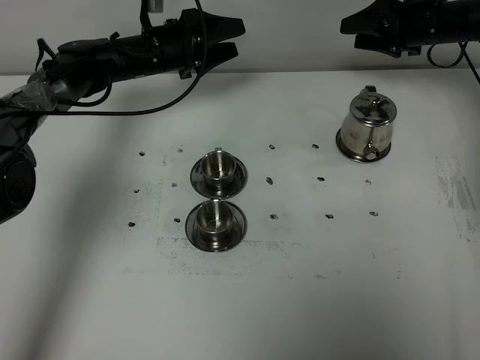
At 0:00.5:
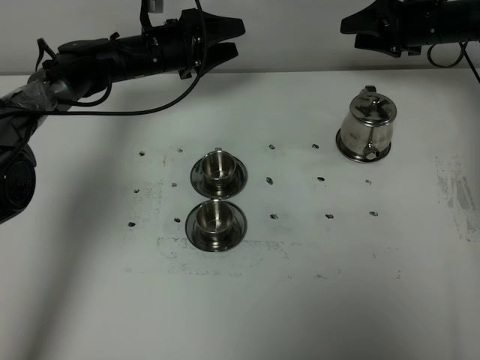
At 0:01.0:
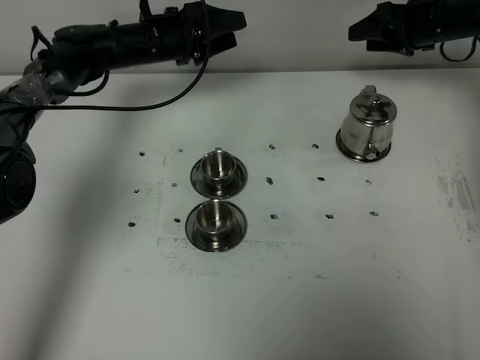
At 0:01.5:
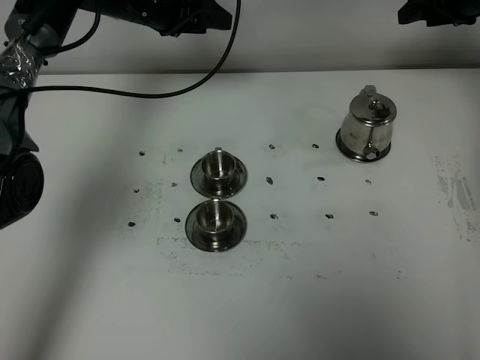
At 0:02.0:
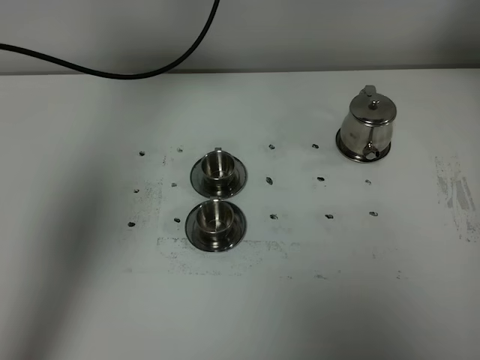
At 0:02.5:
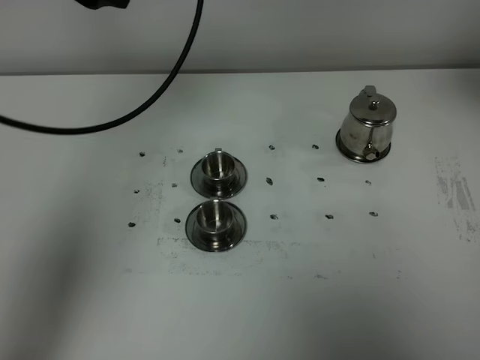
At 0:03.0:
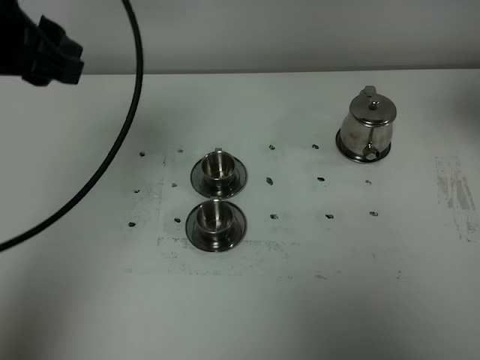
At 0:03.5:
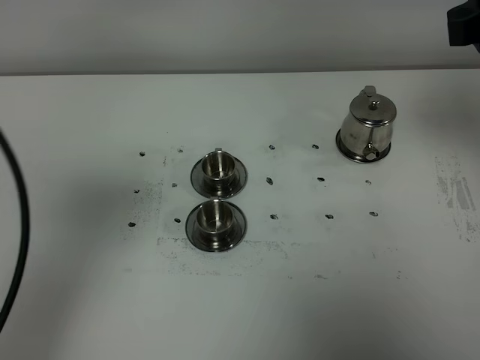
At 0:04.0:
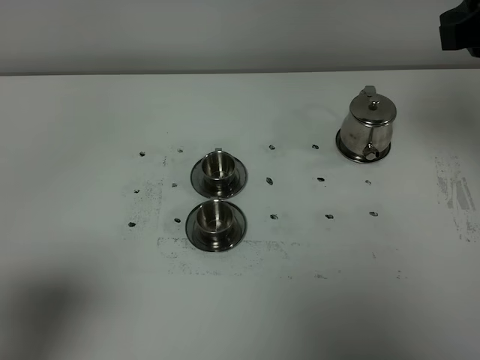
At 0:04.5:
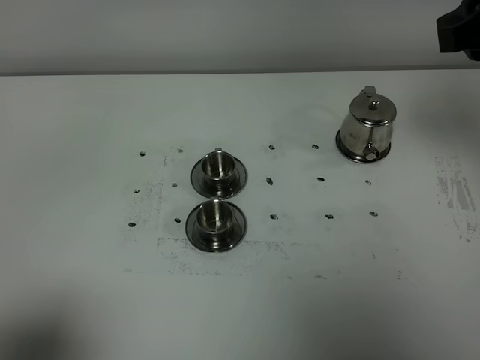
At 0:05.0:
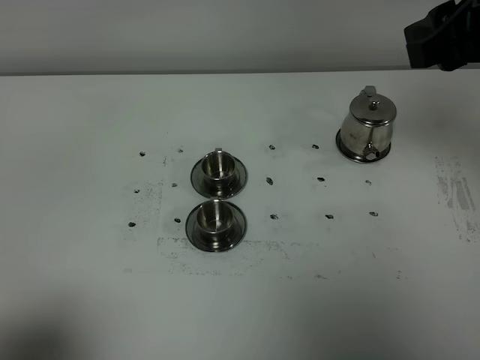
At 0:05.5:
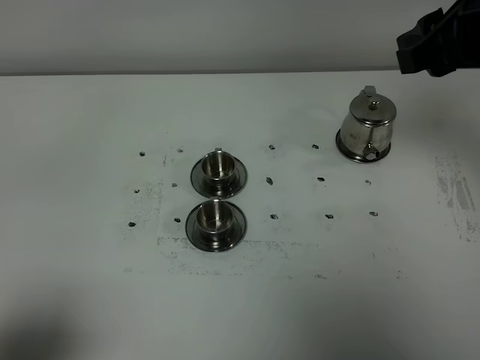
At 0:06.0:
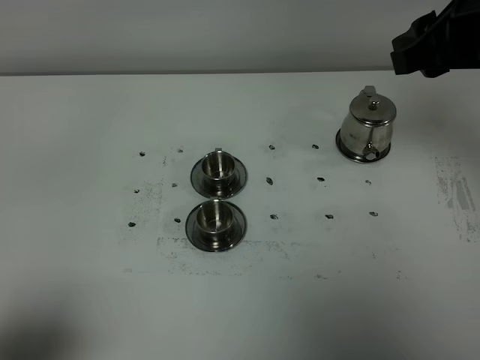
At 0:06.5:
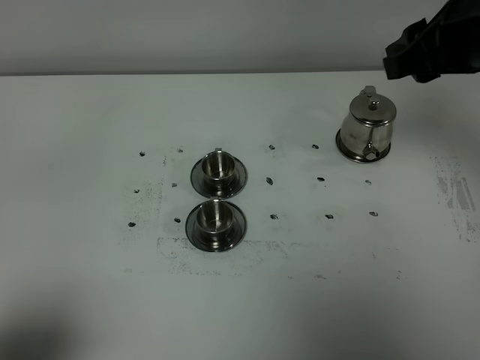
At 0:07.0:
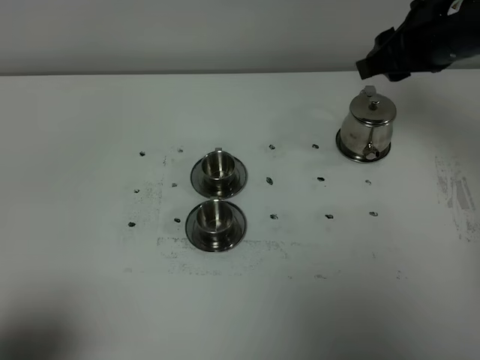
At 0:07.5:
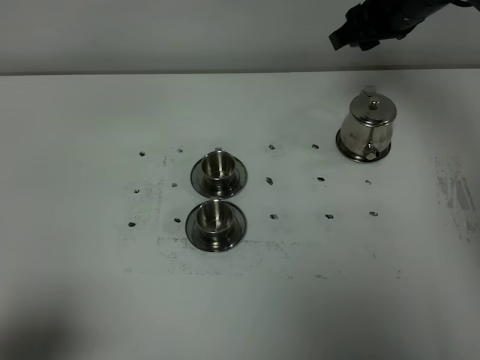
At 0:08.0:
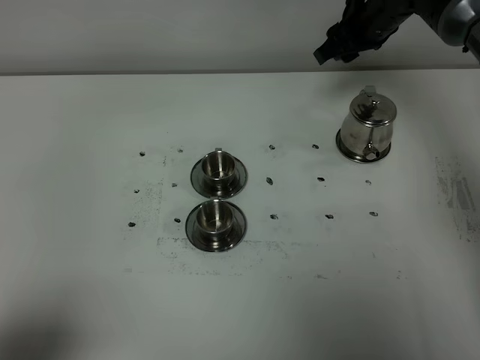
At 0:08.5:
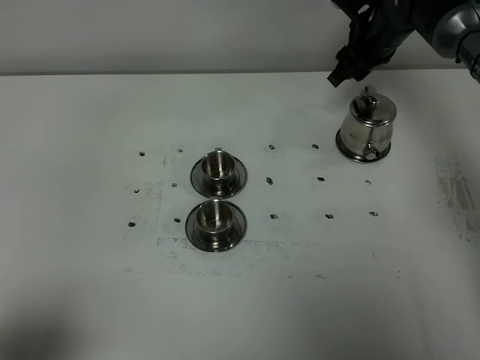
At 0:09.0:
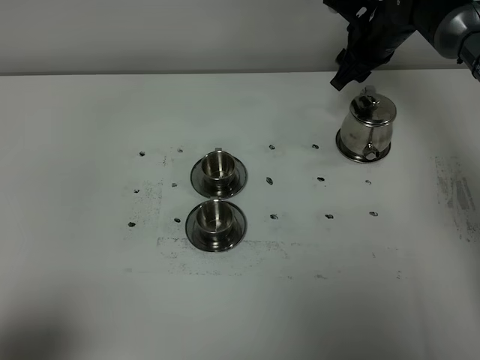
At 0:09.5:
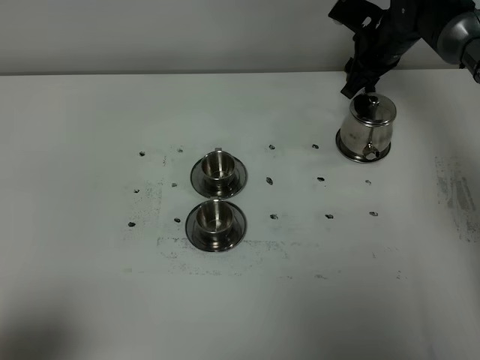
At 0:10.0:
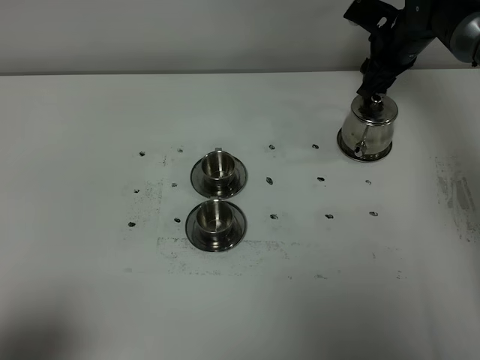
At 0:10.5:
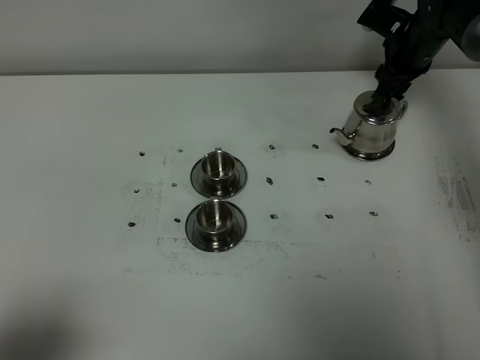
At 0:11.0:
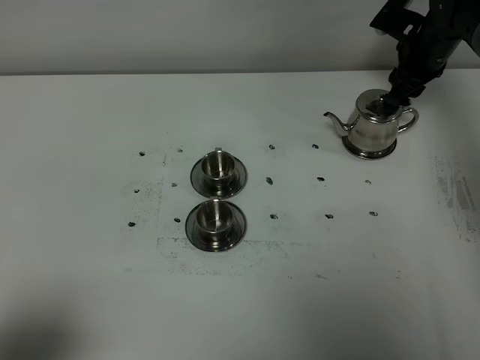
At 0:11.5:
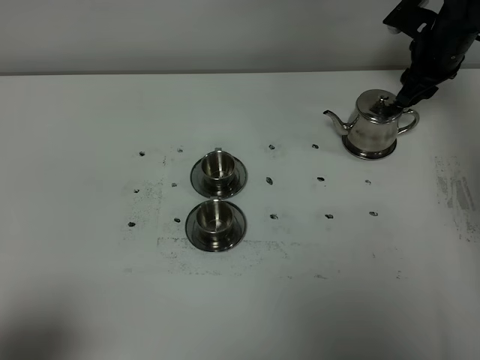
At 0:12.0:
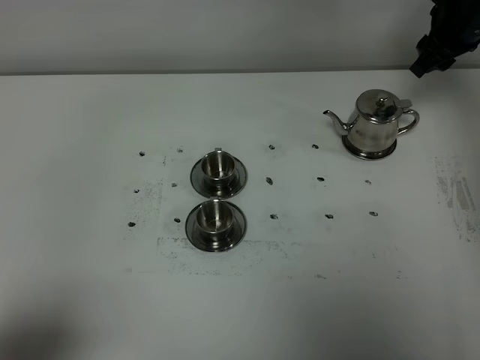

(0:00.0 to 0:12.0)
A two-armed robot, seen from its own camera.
Task of the whole recording: grasp the stainless steel teapot and pour the tea into the two stainless steel teacups one by one, put the stainless steel teapot back in its original place.
0:00.0 - 0:02.0: The right gripper is displaced upward and backward by roughly 25 cm, while the left gripper moves upward, approximately 20 cm, and closes.
0:02.0 - 0:04.0: The left gripper moves backward, about 40 cm; the right gripper is displaced backward and to the left by approximately 20 cm.
0:04.0 - 0:06.0: The left gripper moves about 5 cm.
0:06.0 - 0:08.0: The right gripper moves forward and downward, some 25 cm.
0:08.0 - 0:10.0: The right gripper moves to the right and downward, approximately 10 cm.
0:10.0 - 0:12.0: The right gripper goes about 10 cm upward and to the right.

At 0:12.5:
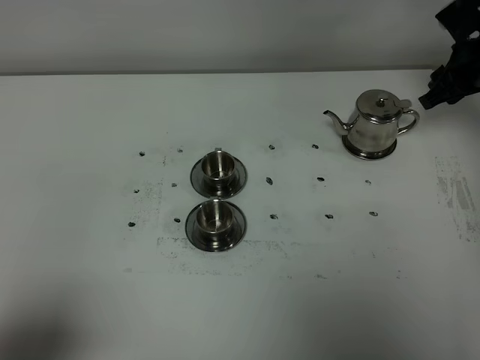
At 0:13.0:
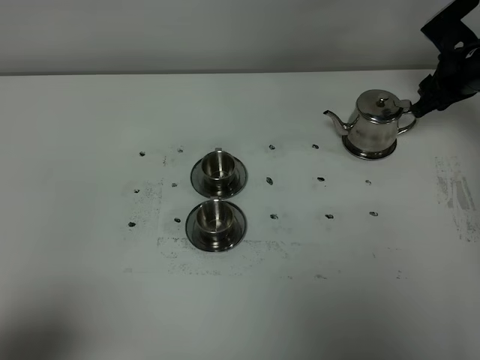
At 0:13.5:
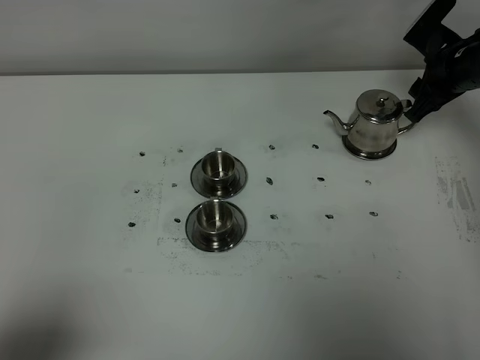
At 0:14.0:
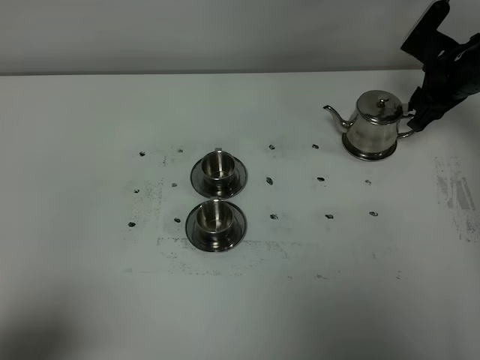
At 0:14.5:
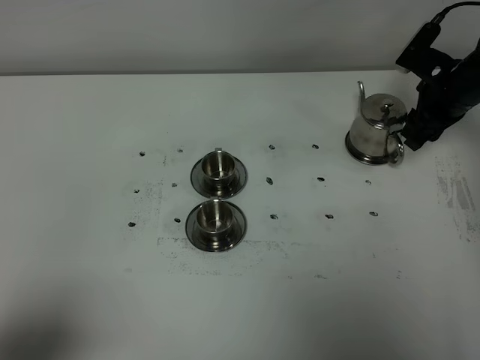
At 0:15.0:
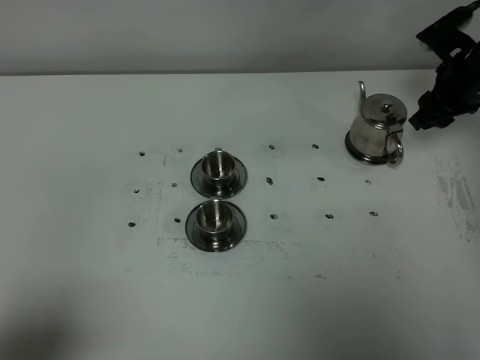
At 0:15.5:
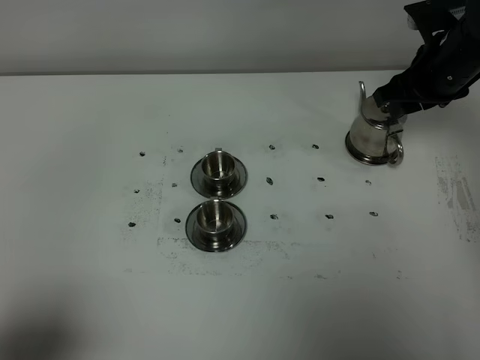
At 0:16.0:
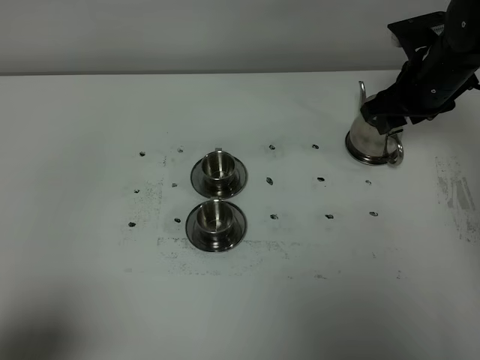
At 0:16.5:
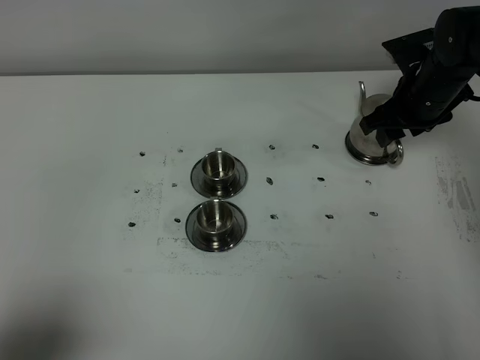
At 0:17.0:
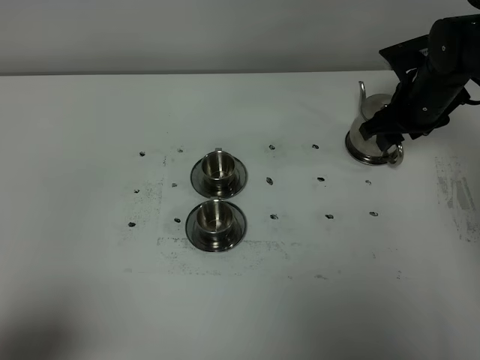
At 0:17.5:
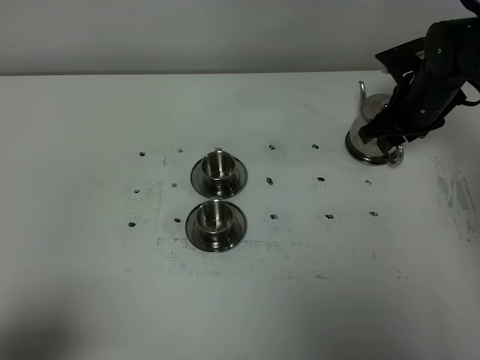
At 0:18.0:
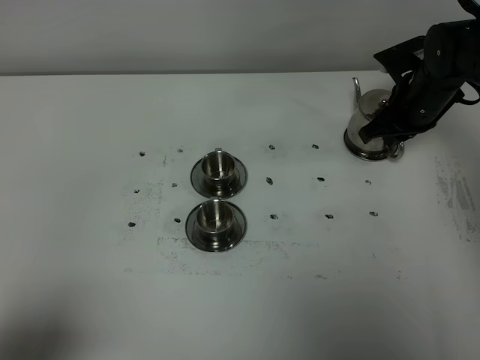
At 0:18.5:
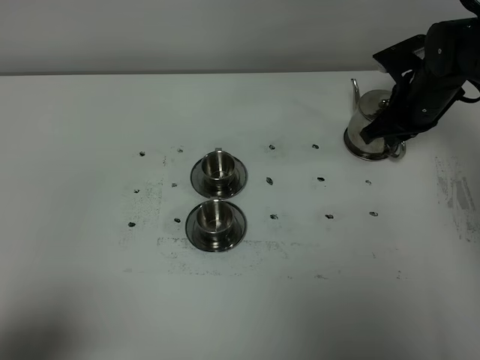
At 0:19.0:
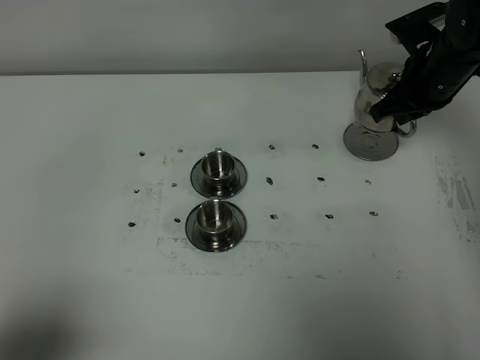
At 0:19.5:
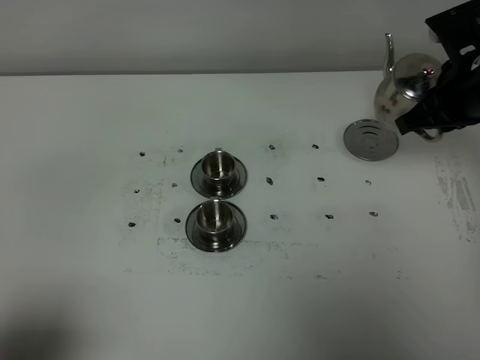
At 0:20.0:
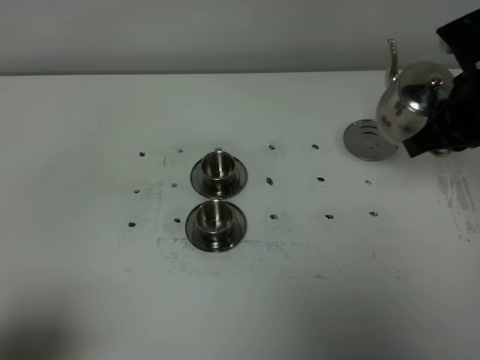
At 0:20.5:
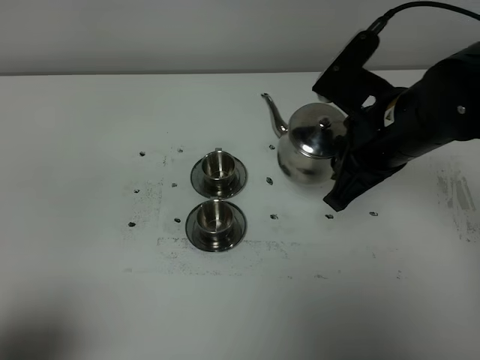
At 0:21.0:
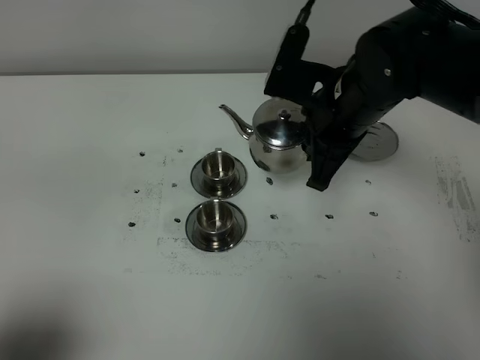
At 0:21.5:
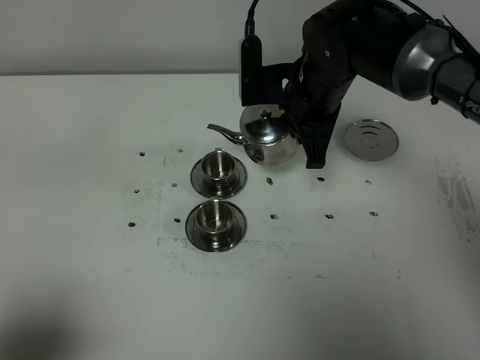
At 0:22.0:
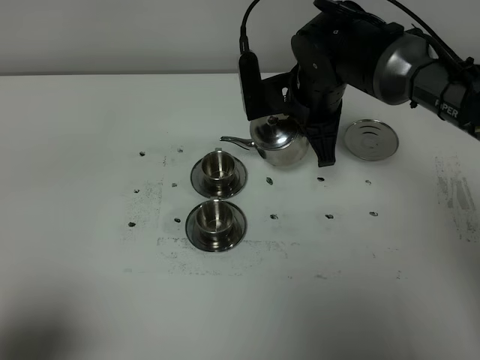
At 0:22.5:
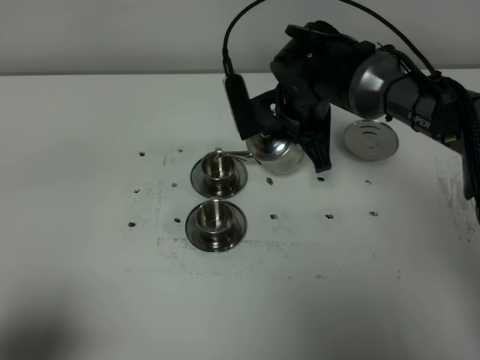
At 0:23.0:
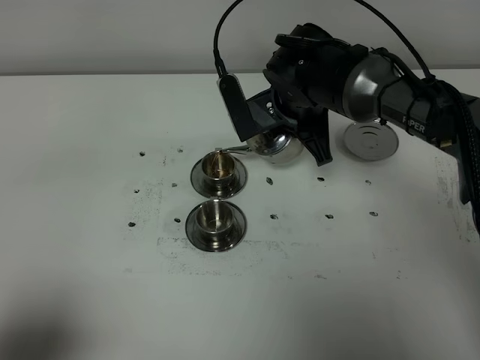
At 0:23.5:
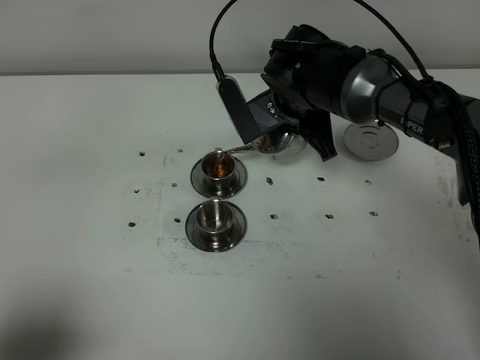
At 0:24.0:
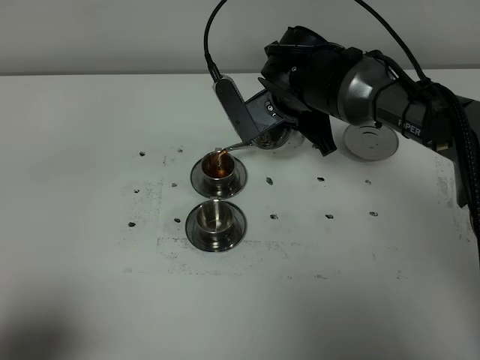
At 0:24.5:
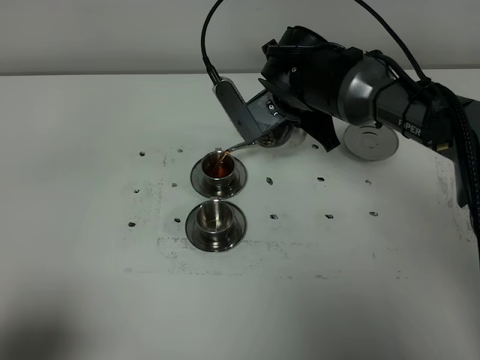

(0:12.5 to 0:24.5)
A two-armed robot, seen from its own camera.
Task of the whole recording: grasp the stainless steel teapot and pour the tea into the two stainless steel teacups one by one, put the stainless steel teapot back in its original place.
Step, 0:12.5 - 0:18.5: Pick up the teapot with the right gripper.
0:16.5 - 0:18.5: The right gripper closes its fingers.
0:18.5 - 0:20.5: The right gripper travels backward, upward and to the left by approximately 20 cm.
0:20.5 - 0:22.5: The right gripper shifts roughly 15 cm forward, downward and to the left.
0:22.5 - 0:24.5: The grippers stay close to where they were, moving slightly.

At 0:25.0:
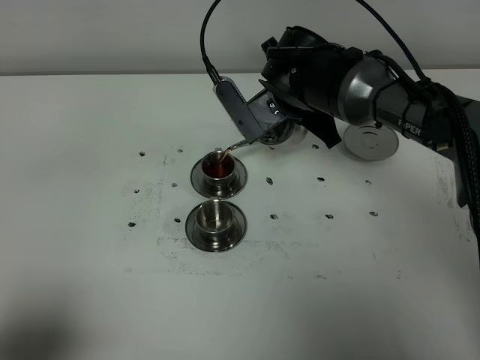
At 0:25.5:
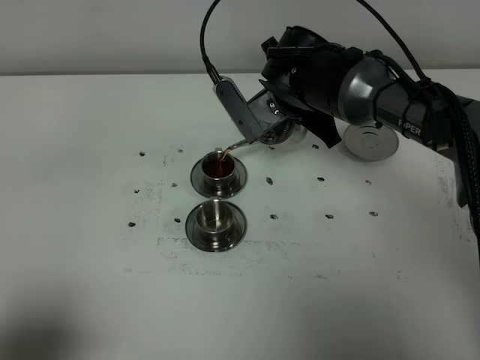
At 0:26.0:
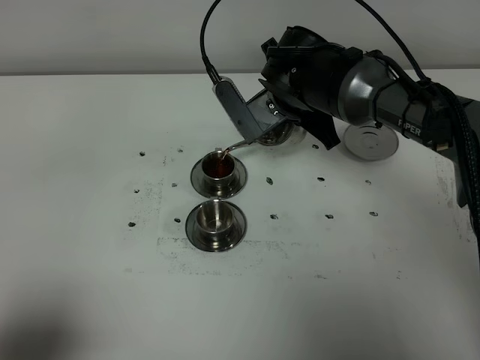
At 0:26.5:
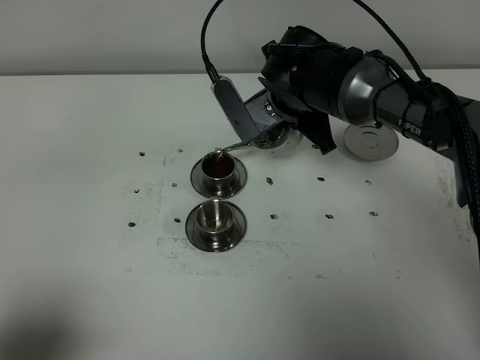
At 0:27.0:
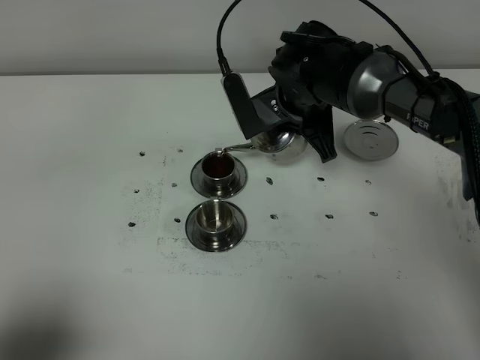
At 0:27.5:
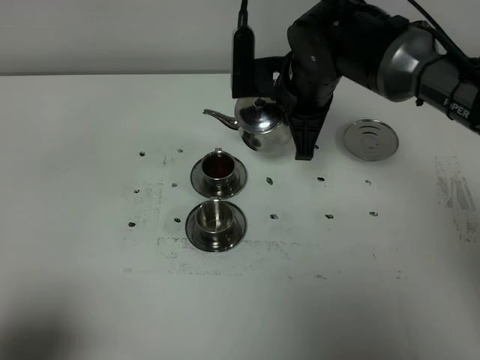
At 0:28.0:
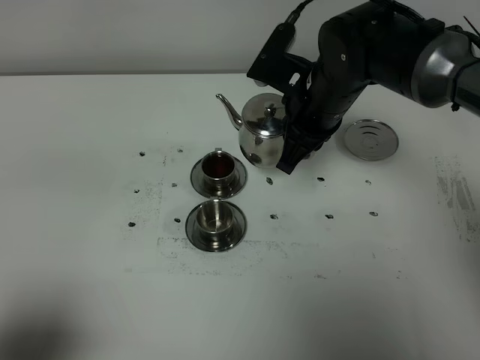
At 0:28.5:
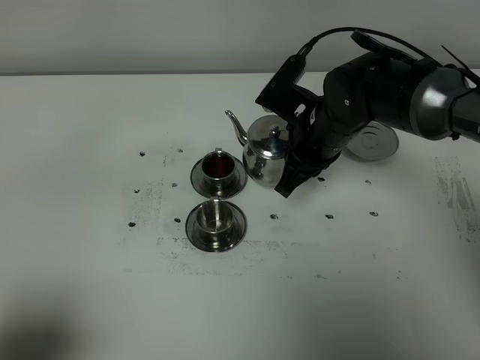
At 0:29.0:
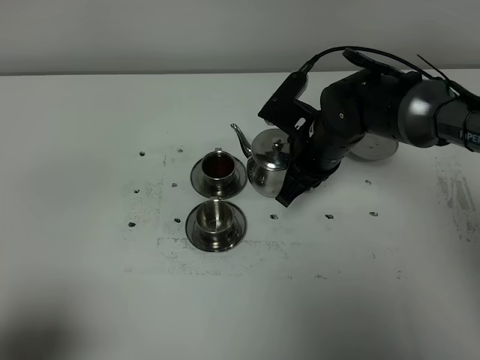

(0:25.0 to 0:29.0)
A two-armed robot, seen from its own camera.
Task of the whole recording: grasp the stainless steel teapot and pour the tea into the two stainless steel teacups one by one, put the stainless steel teapot back in its original place.
Step, 0:25.0 - 0:27.0: Pour tea into the teacup with the right gripper.
0:25.0 - 0:27.0: The grippers make only small movements.
0:27.0 - 0:29.0: The right gripper changes place by roughly 5 cm.
